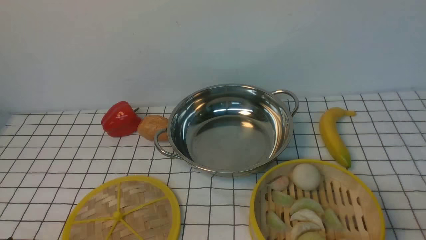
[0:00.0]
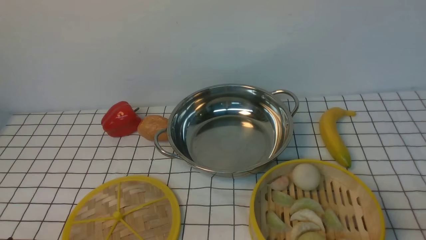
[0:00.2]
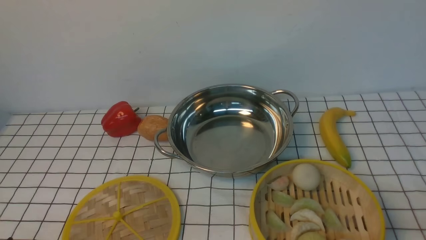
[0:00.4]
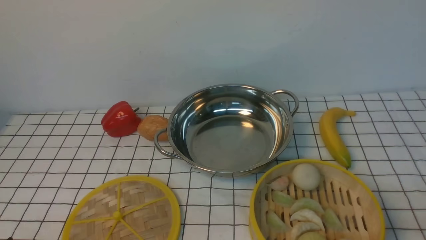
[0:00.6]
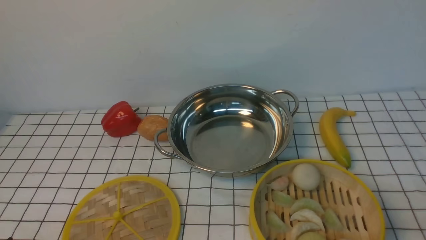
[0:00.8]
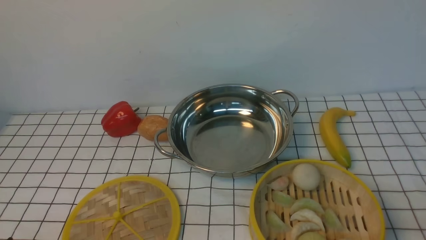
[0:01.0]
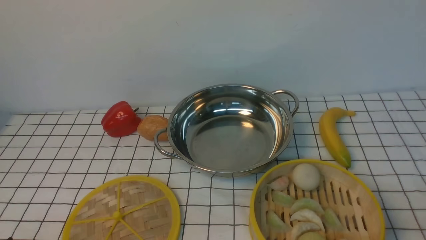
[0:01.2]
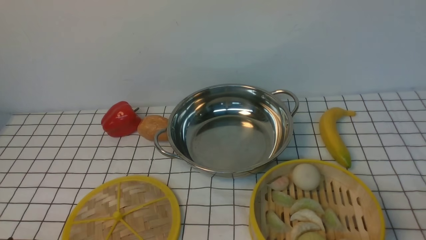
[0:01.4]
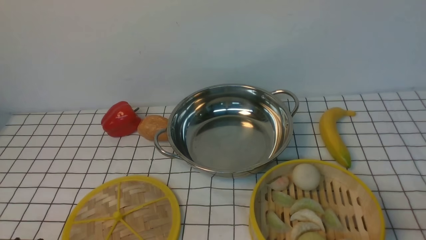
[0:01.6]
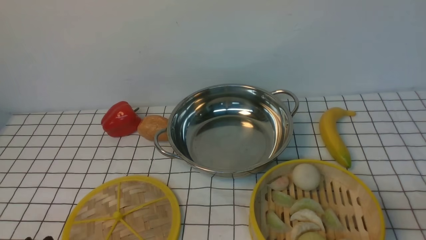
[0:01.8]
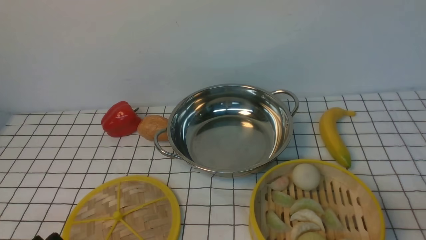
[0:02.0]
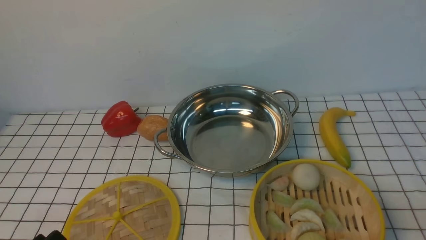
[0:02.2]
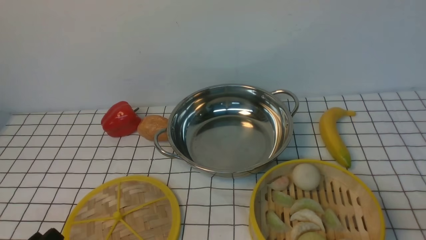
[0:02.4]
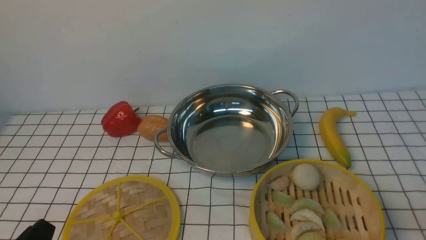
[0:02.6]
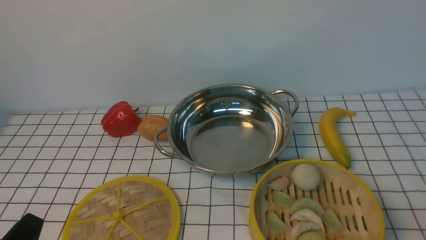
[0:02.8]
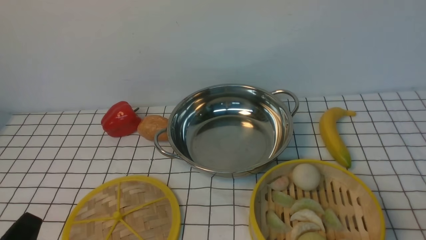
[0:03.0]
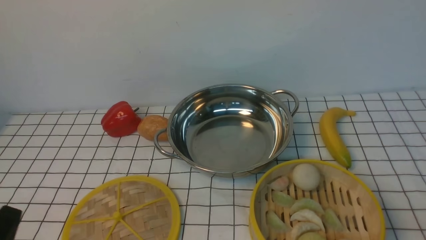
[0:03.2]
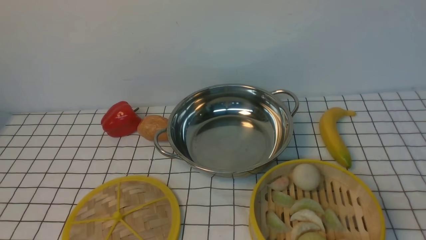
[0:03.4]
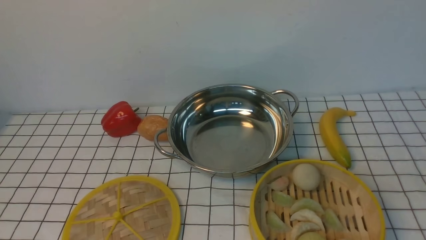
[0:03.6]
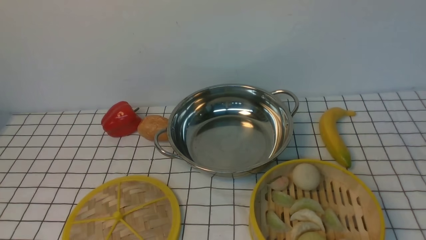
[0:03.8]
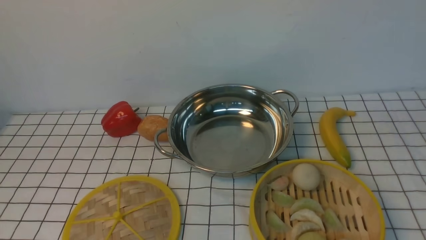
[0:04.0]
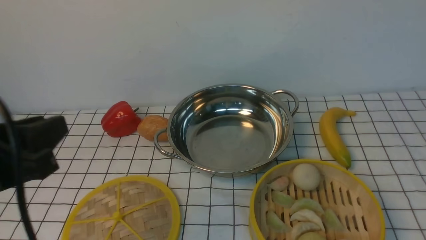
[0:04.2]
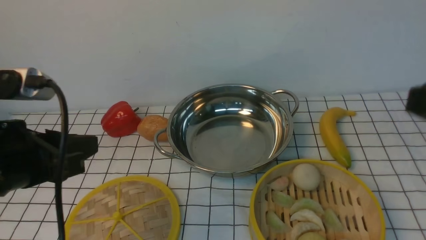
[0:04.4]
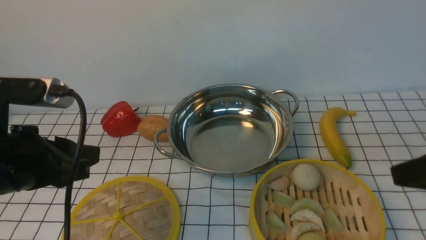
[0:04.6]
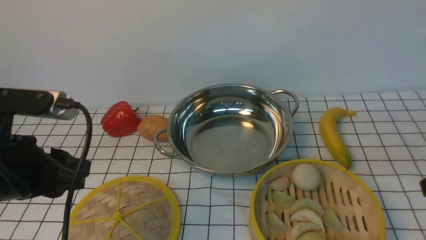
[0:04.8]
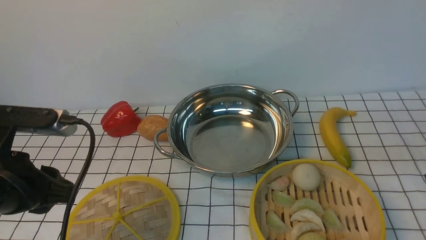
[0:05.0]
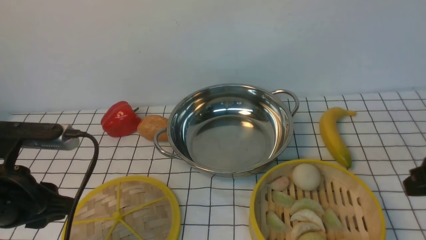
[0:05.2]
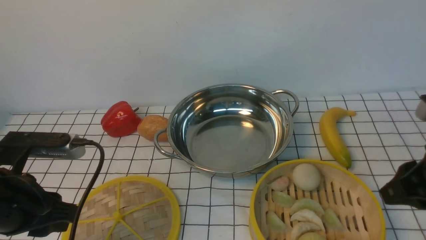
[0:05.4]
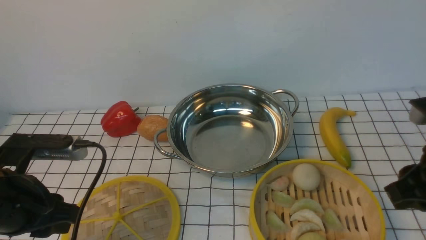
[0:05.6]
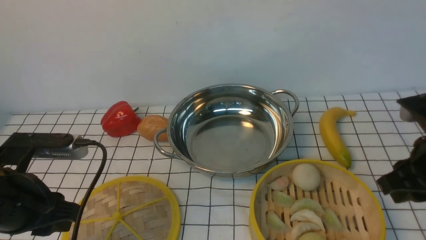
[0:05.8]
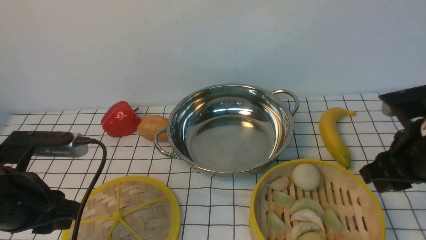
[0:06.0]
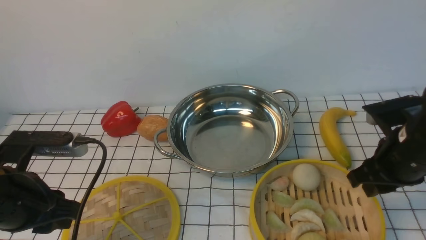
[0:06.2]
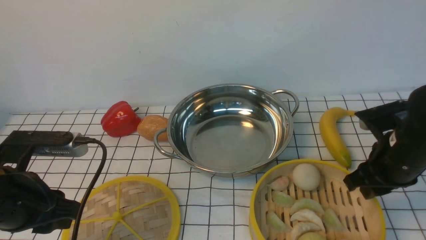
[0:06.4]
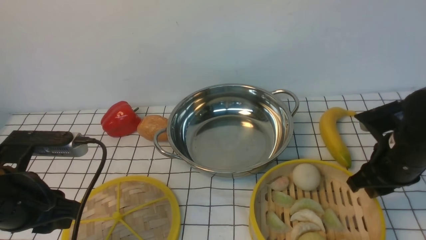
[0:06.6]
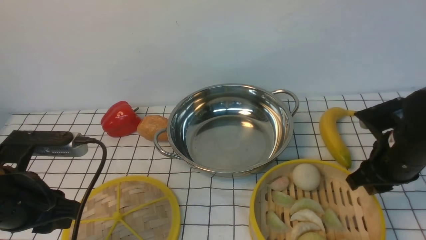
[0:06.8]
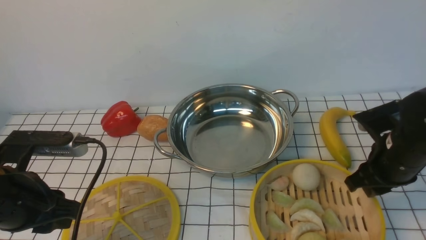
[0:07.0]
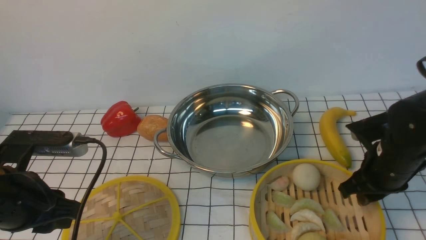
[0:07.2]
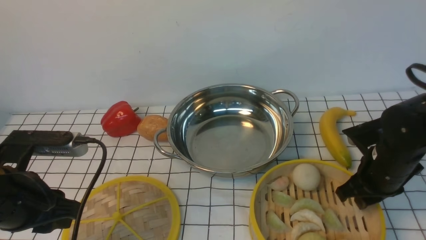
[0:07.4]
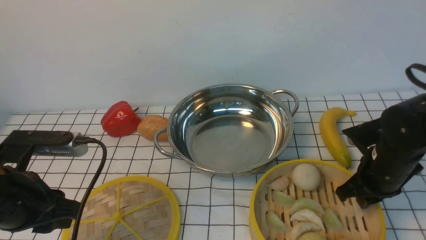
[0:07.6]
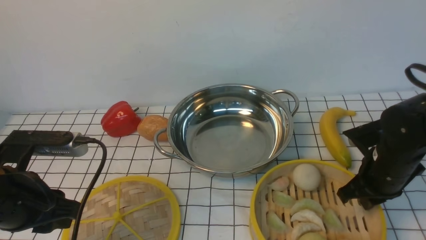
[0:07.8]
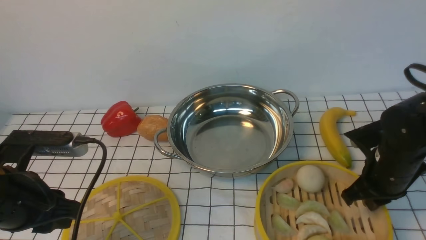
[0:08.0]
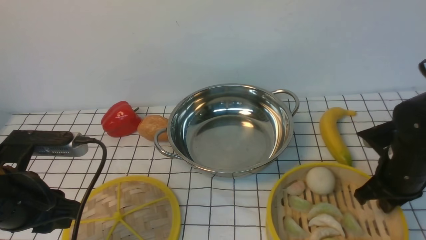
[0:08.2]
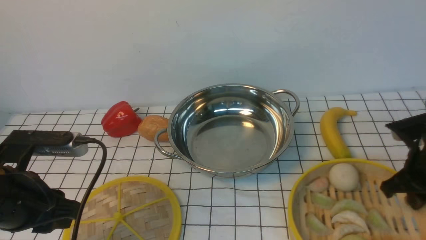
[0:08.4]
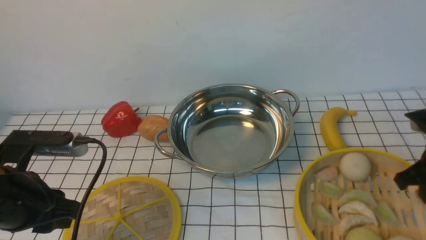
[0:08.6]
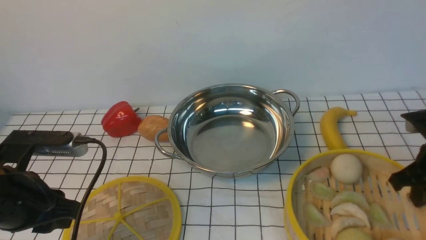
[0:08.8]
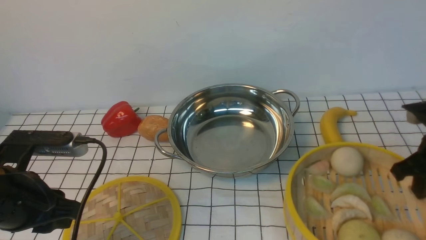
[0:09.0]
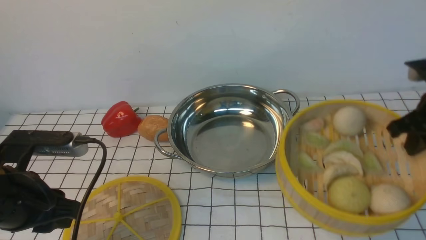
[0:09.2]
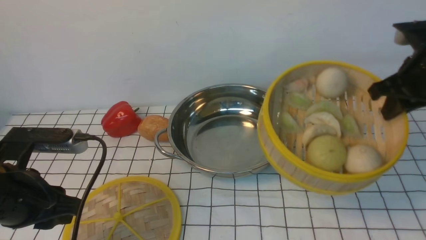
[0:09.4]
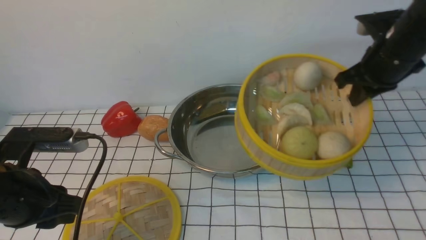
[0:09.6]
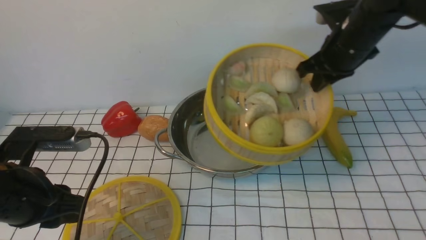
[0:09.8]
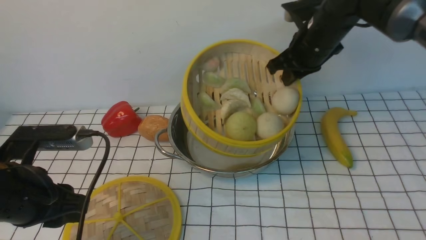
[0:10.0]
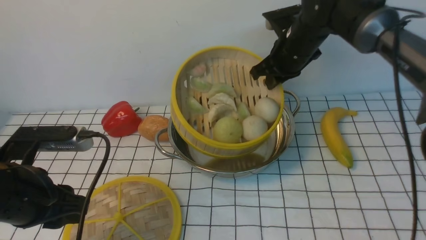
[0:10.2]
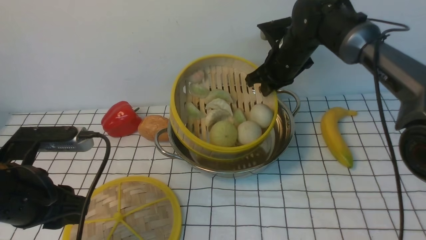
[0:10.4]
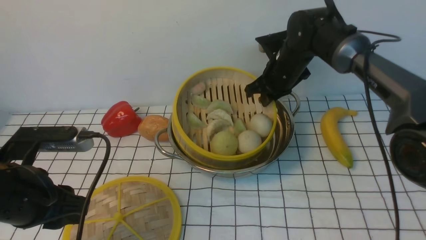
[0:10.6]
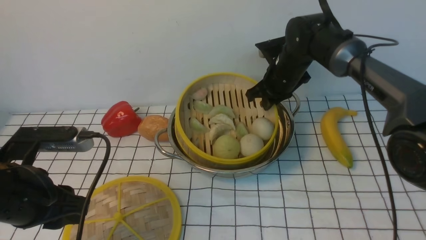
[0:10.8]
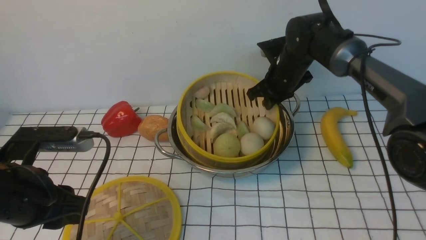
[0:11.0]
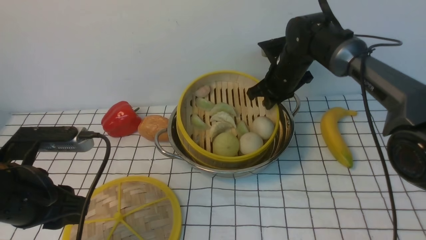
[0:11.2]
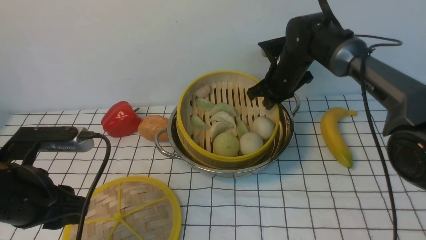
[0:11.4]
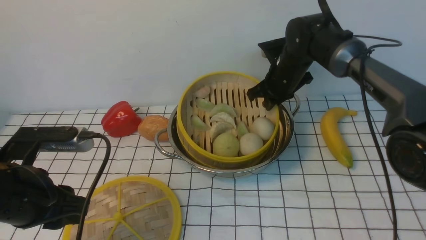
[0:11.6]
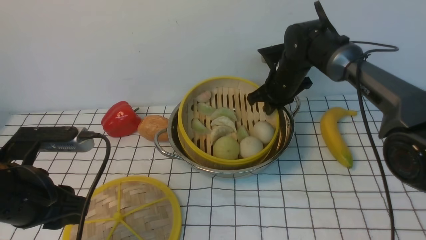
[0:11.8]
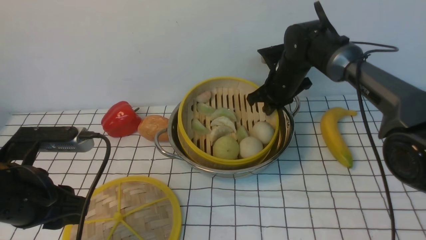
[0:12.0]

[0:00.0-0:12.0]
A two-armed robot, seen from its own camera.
Task of the whole recording: place the steamer in the pot on the white tablecloth, and put the lid on the steamer.
Step, 0:00.0 to 0:08.8: use the right arm to lift the steamer closest to it.
0:03.0 to 0:04.4: The two grippers go some 15 cm upward and forward.
0:04.4 to 0:06.0: The left gripper is displaced downward by some 5 cm. The right gripper heads downward and forward, covering some 15 cm.
0:06.0 to 0:07.6: The right gripper moves downward, about 10 cm.
0:07.6 to 0:09.0: The right gripper travels upward and to the right by about 10 cm.
0:09.0 to 0:10.4: The right gripper moves forward and to the left, approximately 25 cm.
0:10.4 to 0:12.0: The grippers stay close to where they were, moving slightly.

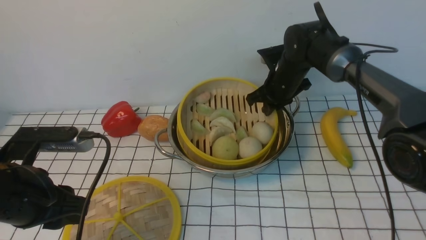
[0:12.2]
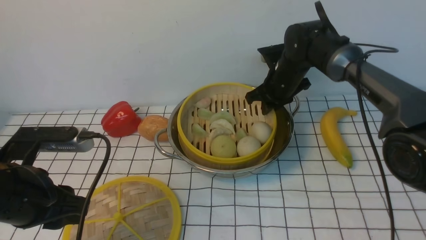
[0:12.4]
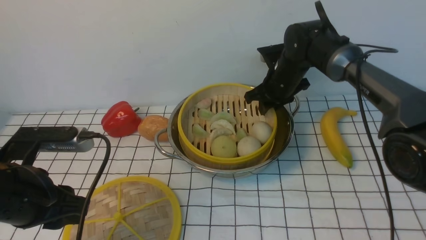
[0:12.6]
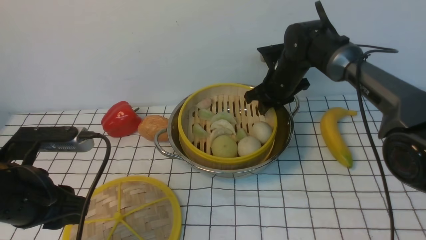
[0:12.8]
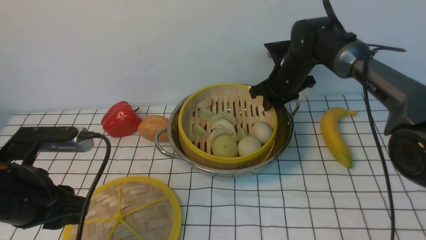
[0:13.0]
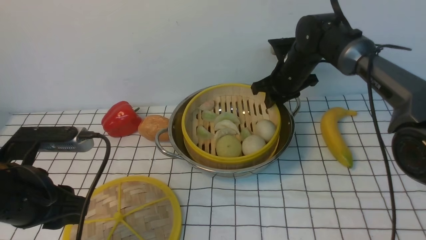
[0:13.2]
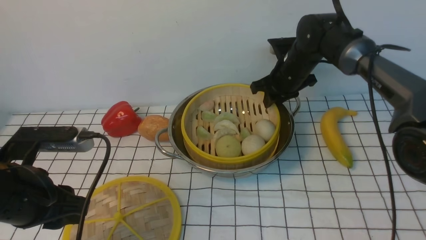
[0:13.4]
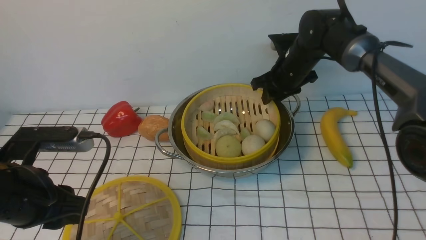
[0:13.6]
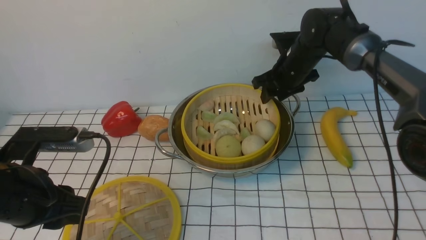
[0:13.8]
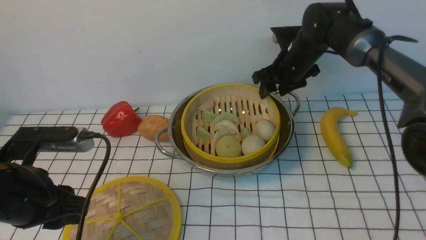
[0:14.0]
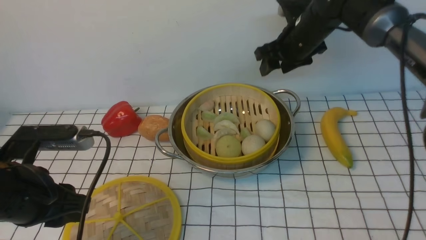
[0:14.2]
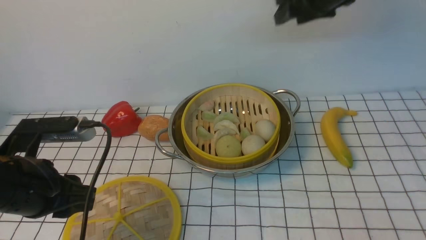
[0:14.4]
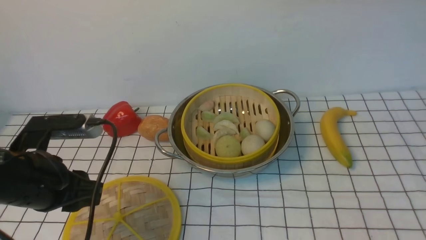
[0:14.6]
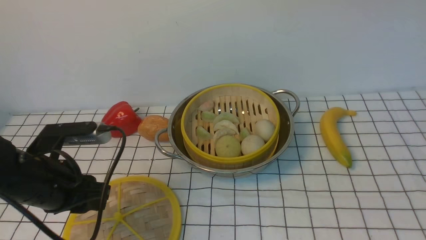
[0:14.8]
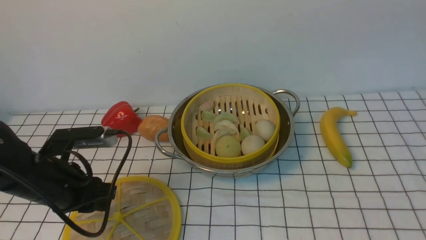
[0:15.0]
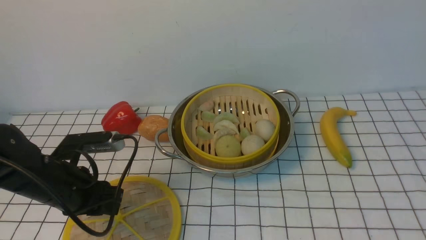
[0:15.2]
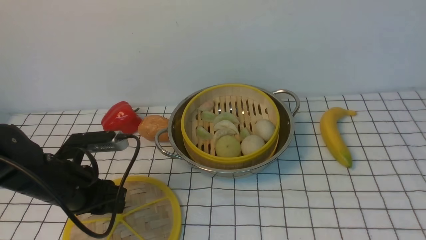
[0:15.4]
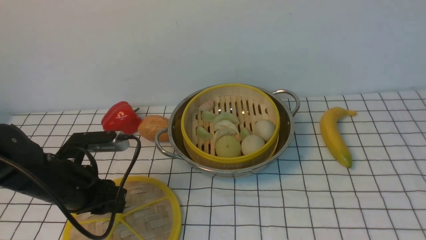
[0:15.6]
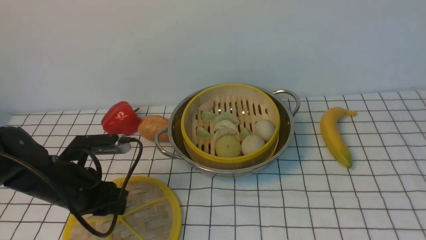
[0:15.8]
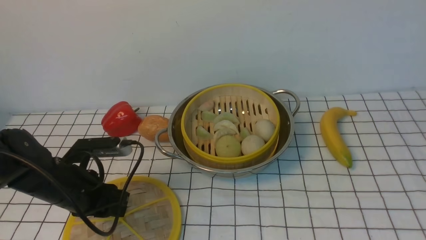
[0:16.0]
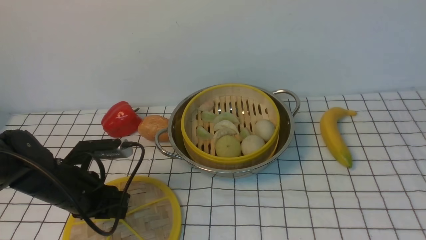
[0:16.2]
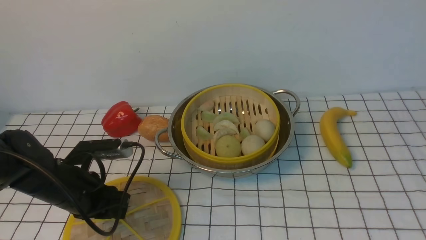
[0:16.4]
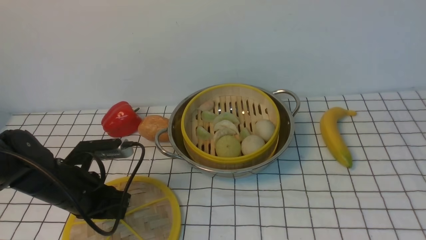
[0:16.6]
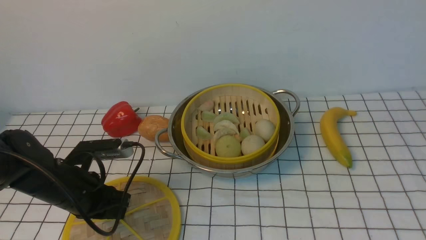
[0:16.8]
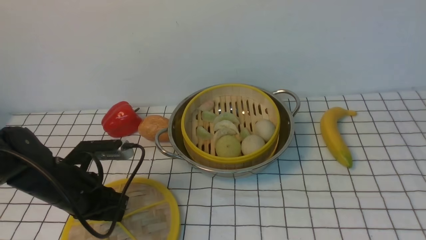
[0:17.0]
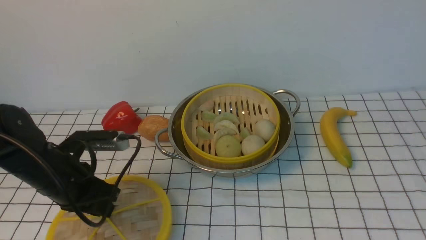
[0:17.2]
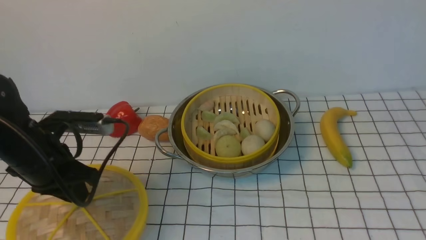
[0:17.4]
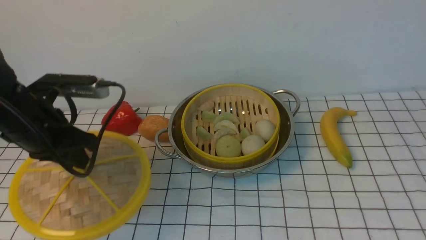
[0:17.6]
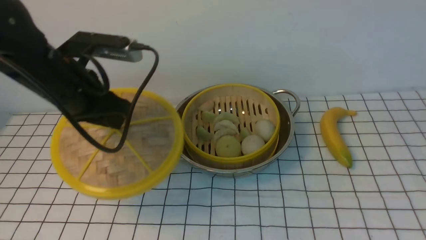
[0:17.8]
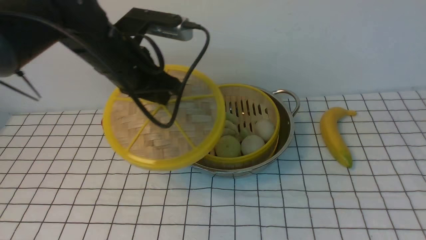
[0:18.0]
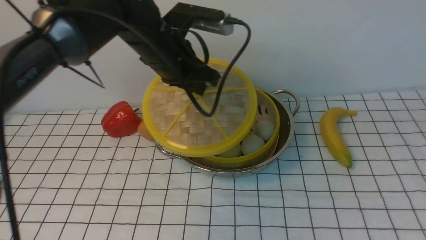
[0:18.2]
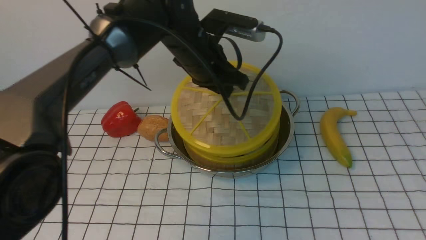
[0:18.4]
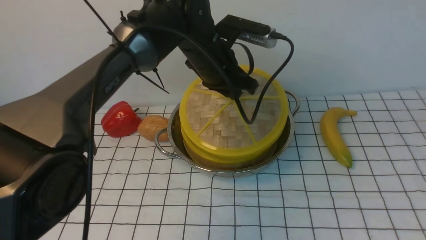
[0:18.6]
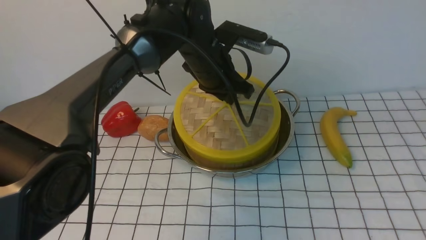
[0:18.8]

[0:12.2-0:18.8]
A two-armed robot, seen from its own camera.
Task of the whole recording: place the steamer in the pot on the white tablecloth, and put the lid on the steamer.
Step, 0:14.2 to 0:17.4: use the left arm to lift the lid of the steamer.
0:12.2 to 0:13.8: The right gripper opens up.
0:13.8 to 0:15.4: The left gripper shifts some 10 cm downward and forward, while the right gripper goes approximately 50 cm backward and upward, and closes up.
0:15.4 to 0:17.2: The left gripper closes its fingers.
0:17.2 to 0:18.8: The left gripper travels to the right and forward by roughly 25 cm.
